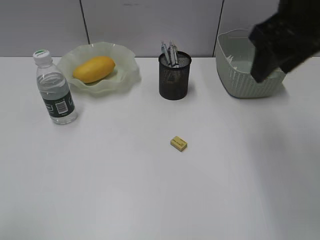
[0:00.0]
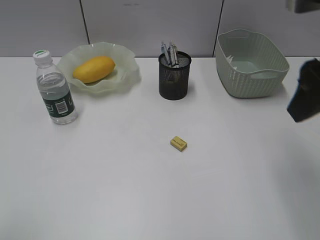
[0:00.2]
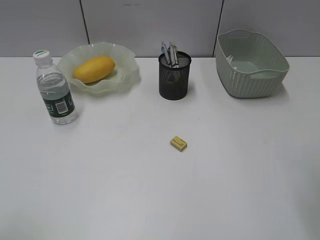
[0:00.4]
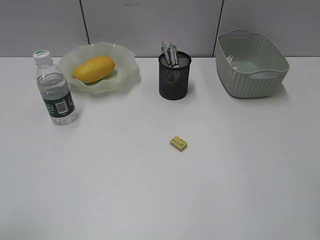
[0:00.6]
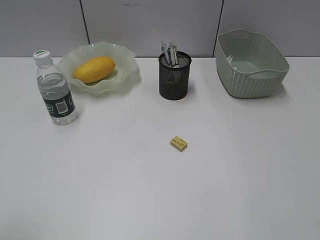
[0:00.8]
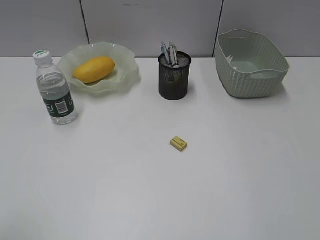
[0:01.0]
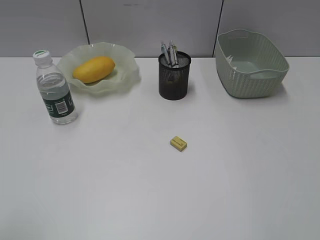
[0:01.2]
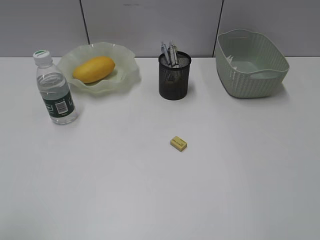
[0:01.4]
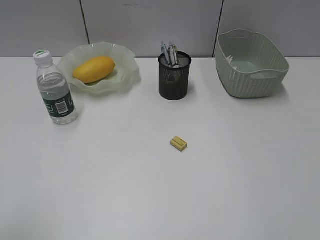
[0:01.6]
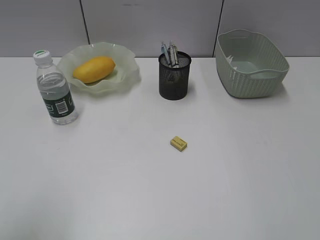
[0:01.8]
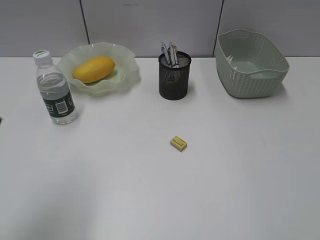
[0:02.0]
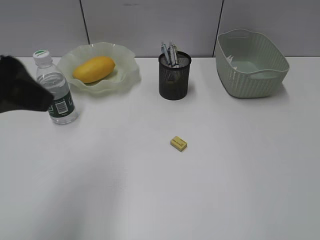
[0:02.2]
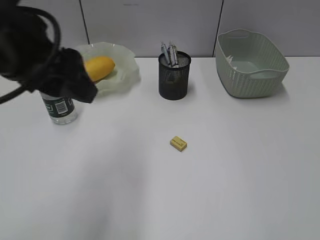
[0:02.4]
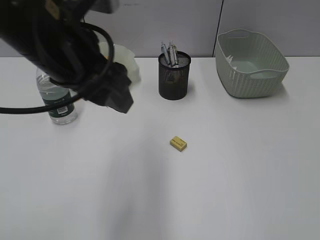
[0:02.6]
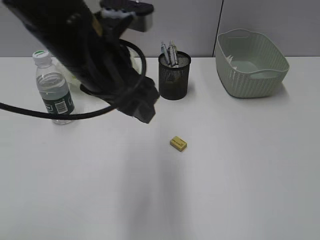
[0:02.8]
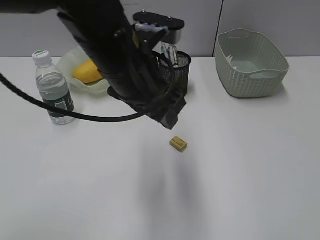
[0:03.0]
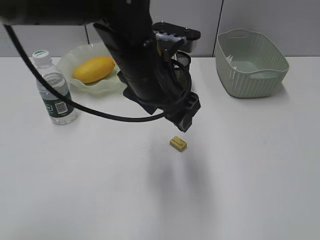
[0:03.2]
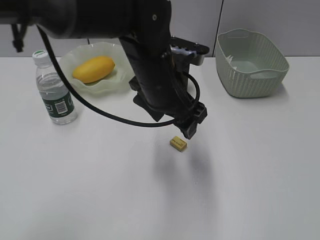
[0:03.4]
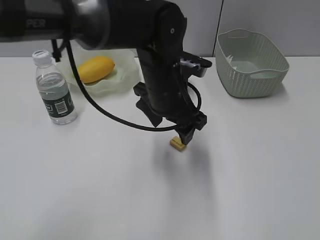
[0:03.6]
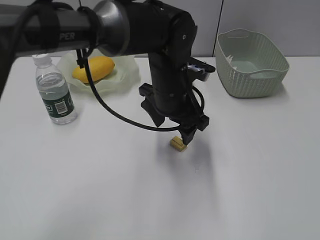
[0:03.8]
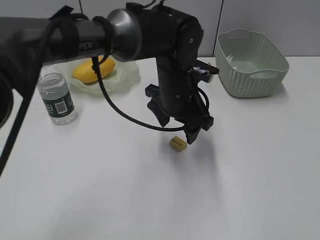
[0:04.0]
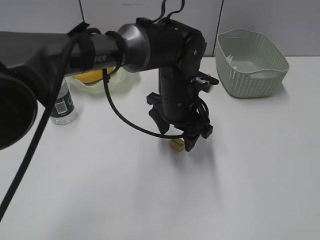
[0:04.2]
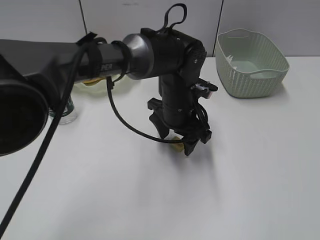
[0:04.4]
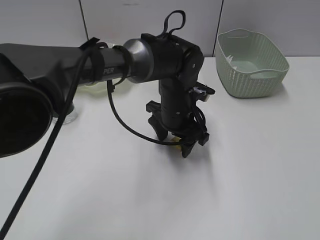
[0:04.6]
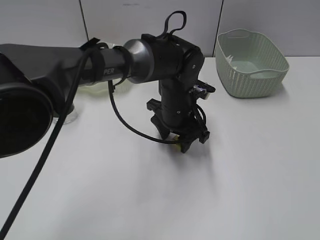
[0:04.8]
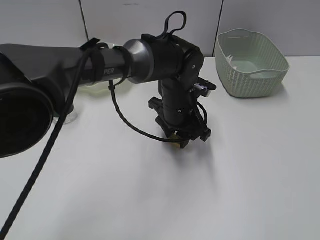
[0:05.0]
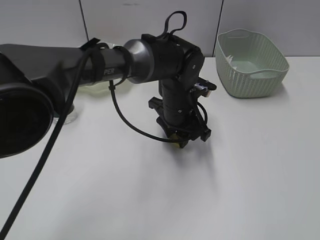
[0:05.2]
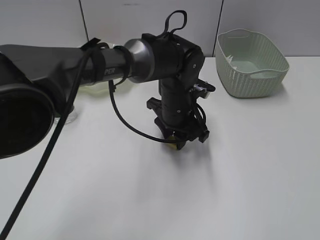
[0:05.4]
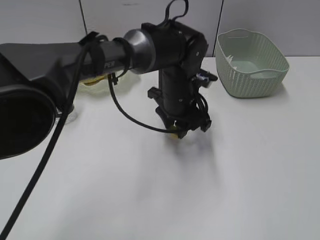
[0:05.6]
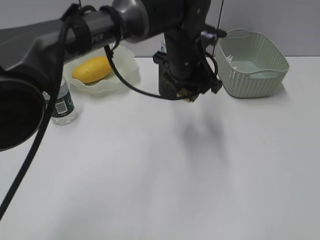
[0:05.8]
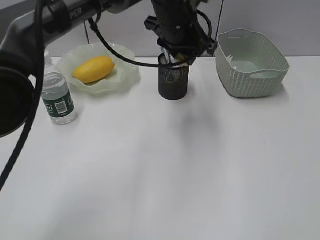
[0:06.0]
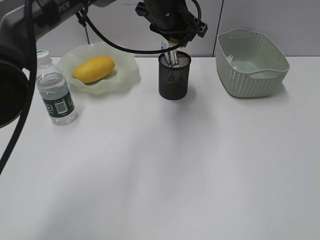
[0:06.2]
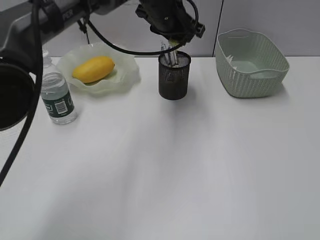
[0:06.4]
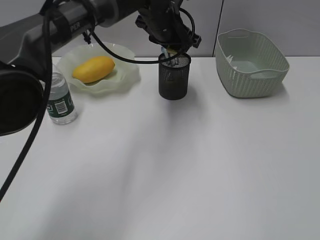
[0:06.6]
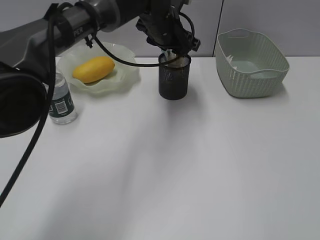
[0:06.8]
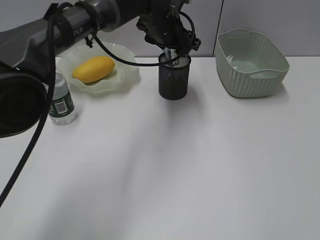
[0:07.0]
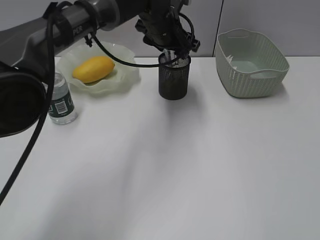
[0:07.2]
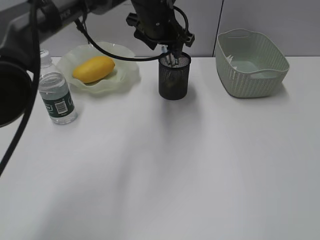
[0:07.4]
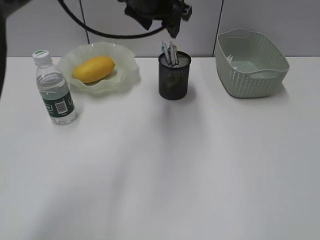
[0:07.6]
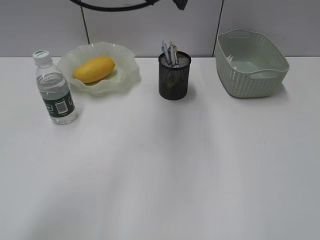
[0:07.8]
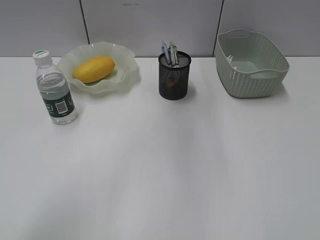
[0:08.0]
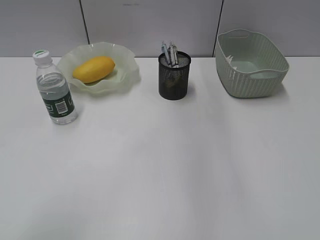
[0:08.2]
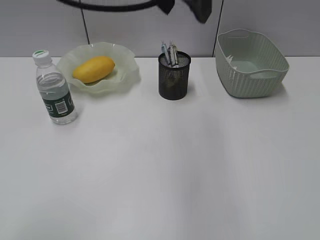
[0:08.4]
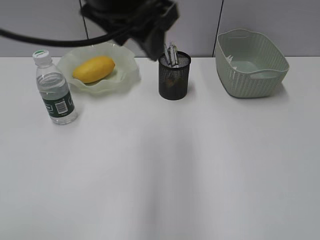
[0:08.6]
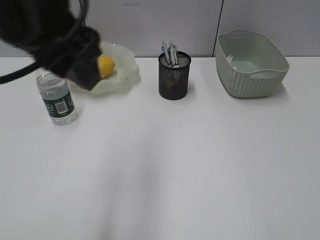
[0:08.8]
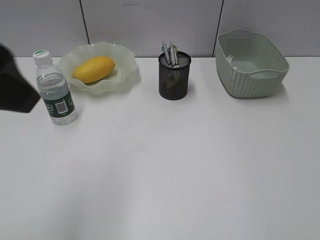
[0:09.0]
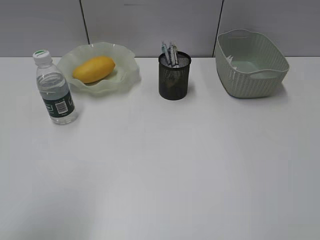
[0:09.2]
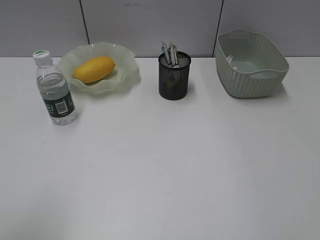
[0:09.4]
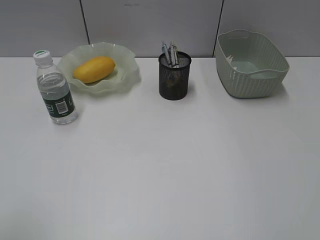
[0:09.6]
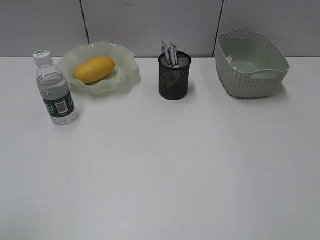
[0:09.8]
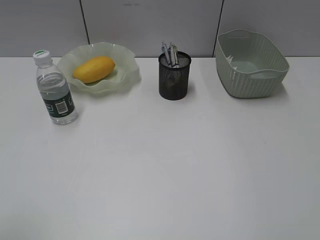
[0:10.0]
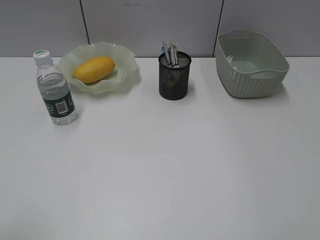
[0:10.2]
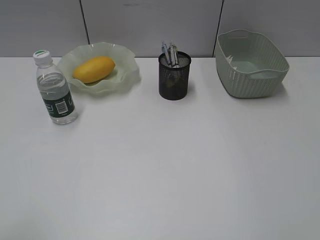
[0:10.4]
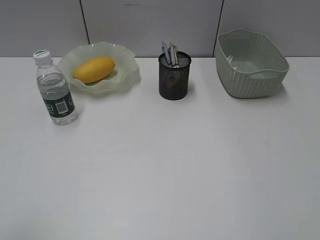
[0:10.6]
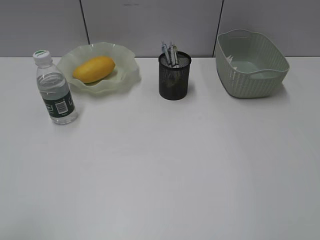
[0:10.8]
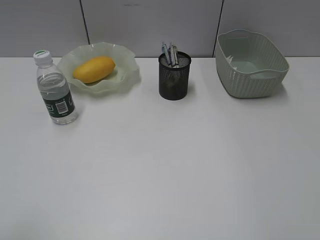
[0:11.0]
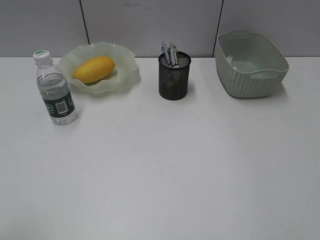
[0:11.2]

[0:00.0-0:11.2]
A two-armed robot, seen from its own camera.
Step, 0.0 to 5.2 s: Grasp the eraser with left gripper.
Step, 5.4 to 6.8 s: Place the eraser in pen holder with left gripper.
0.0 to 1.6 s: The right gripper heads backward and to the right, covering approximately 30 cm.
1.6 to 3.2 s: The left gripper moves to the right and forward, approximately 35 cm, and opens.
3.2 to 4.8 s: The left gripper moves downward, forward and to the right, some 15 cm.
4.8 to 6.4 s: The left gripper travels upward and forward by approximately 15 cm, and closes its fingers.
6.4 to 8.0 s: The left gripper is displaced upward and backward by roughly 15 cm, and opens.
8.0 to 9.6 s: The left gripper heads backward and to the left, covering some 40 cm.

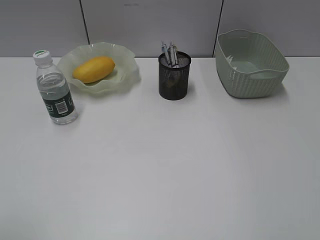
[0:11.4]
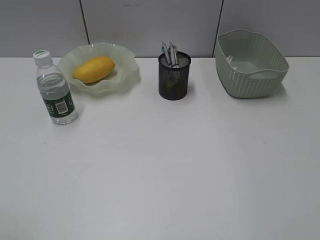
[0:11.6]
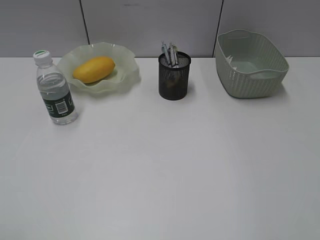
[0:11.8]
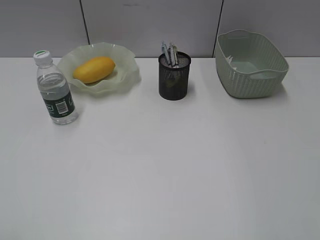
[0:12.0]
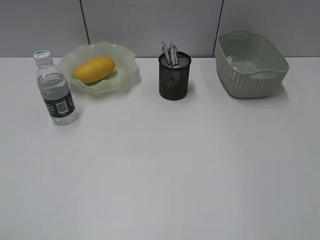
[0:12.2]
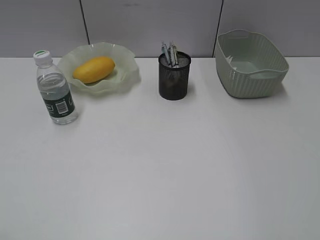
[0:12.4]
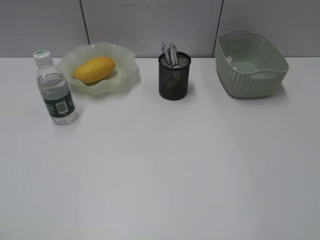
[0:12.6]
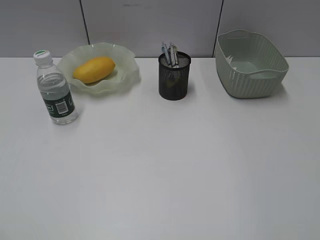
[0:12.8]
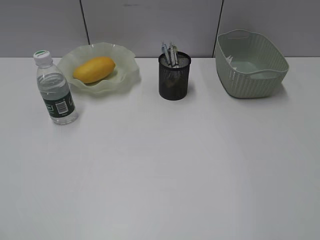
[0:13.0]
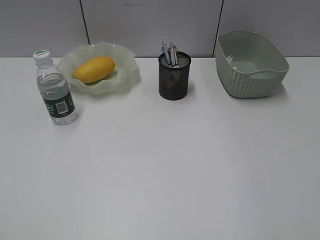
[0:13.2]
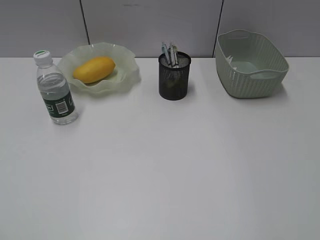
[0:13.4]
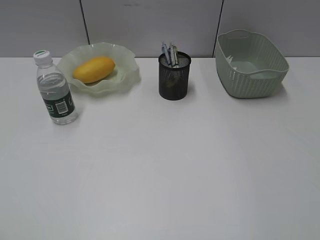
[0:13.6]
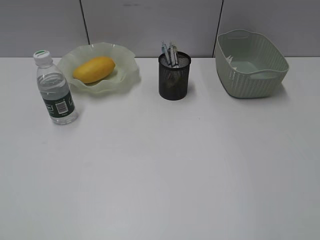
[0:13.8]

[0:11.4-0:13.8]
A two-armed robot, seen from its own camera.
12.6 to 13.8 s: Both grippers stay about where they are.

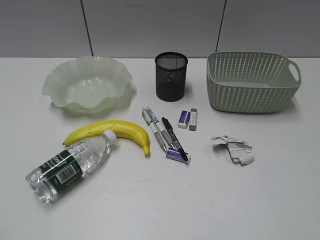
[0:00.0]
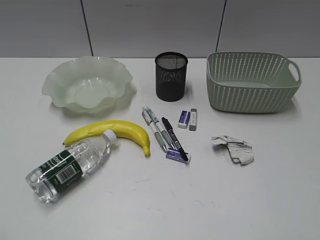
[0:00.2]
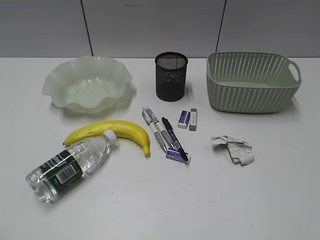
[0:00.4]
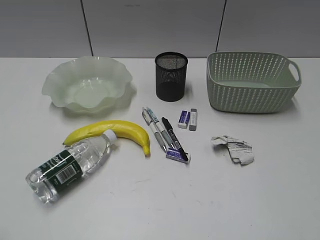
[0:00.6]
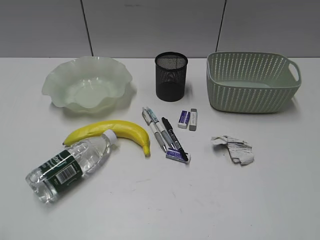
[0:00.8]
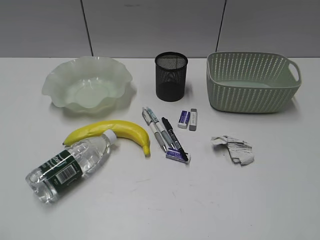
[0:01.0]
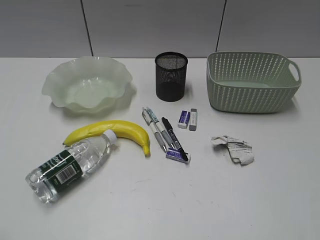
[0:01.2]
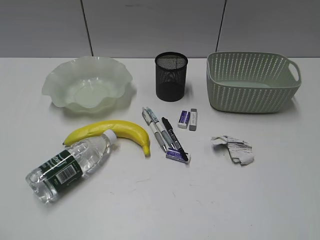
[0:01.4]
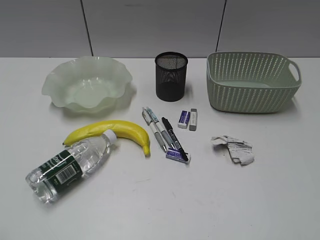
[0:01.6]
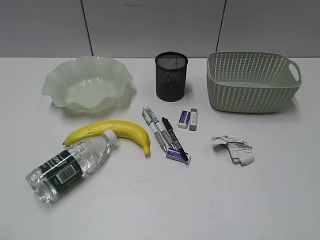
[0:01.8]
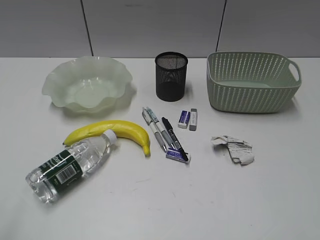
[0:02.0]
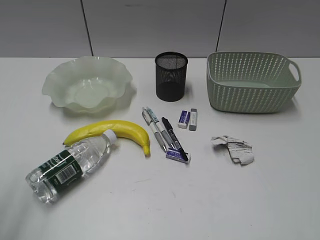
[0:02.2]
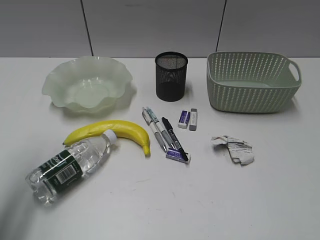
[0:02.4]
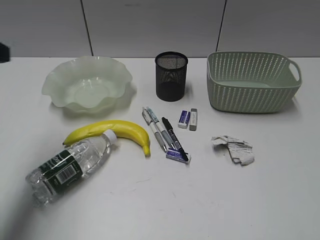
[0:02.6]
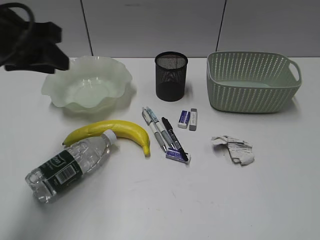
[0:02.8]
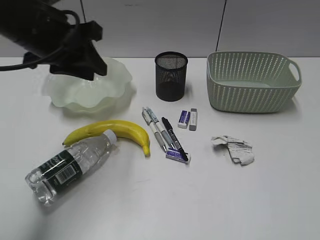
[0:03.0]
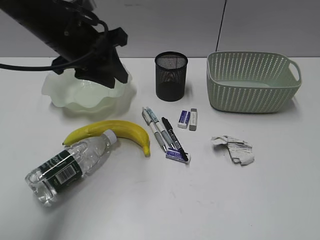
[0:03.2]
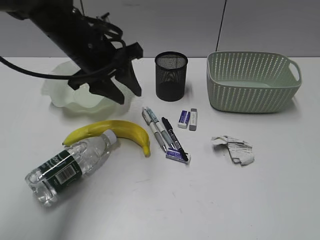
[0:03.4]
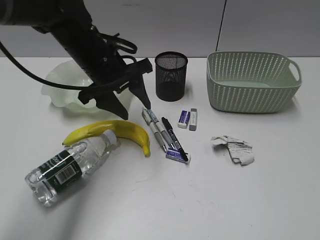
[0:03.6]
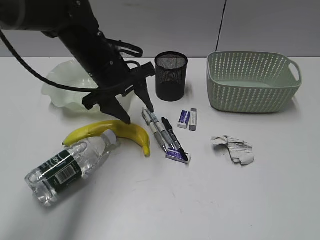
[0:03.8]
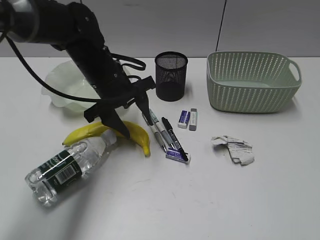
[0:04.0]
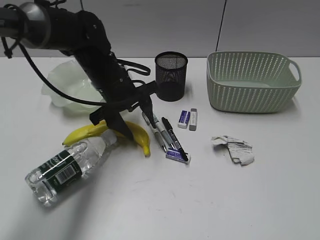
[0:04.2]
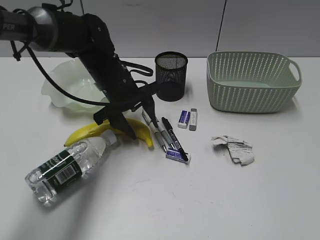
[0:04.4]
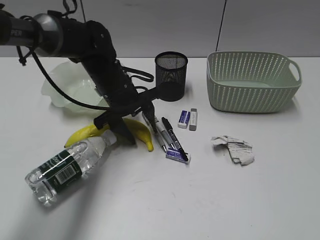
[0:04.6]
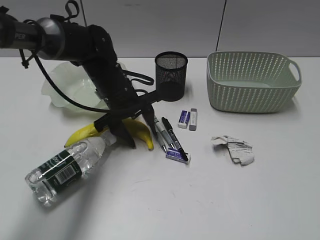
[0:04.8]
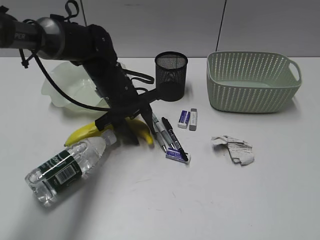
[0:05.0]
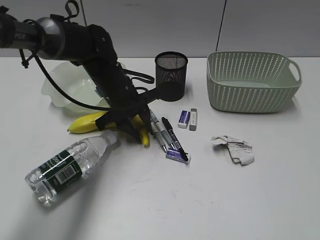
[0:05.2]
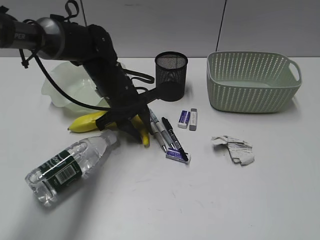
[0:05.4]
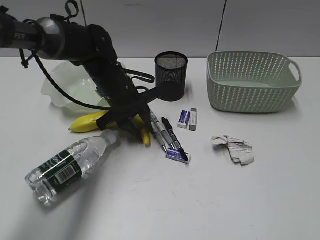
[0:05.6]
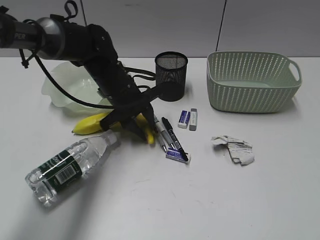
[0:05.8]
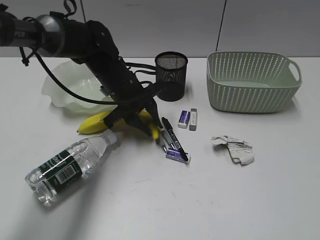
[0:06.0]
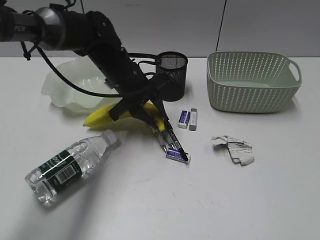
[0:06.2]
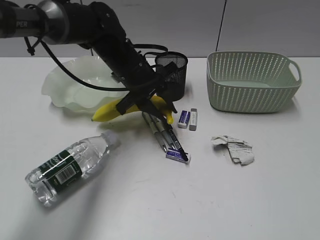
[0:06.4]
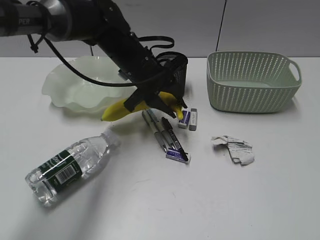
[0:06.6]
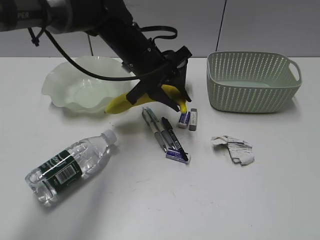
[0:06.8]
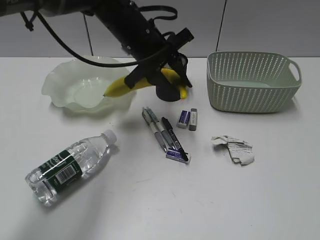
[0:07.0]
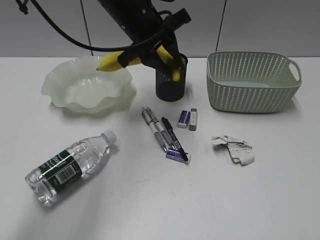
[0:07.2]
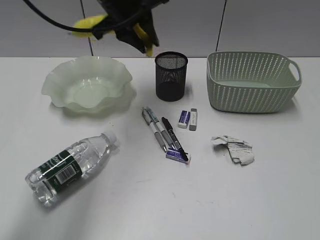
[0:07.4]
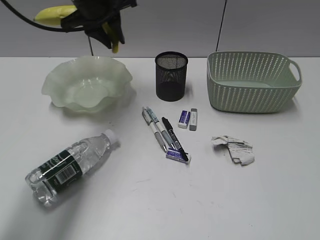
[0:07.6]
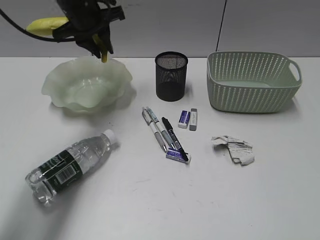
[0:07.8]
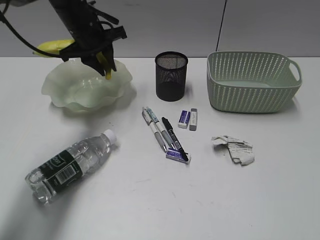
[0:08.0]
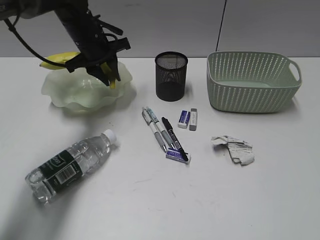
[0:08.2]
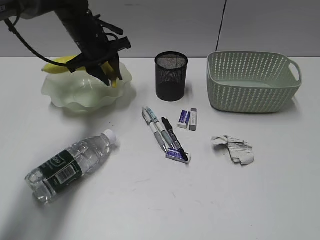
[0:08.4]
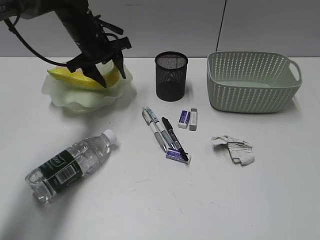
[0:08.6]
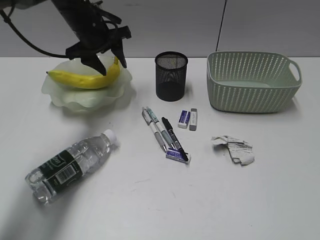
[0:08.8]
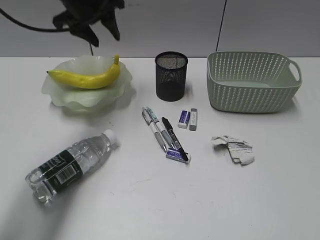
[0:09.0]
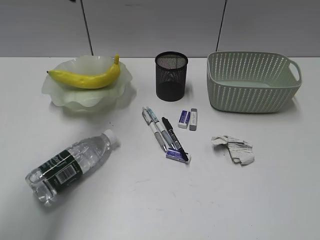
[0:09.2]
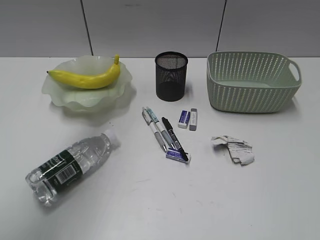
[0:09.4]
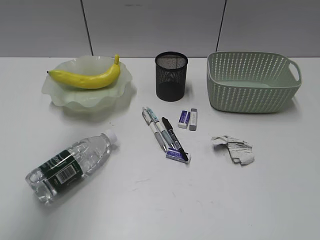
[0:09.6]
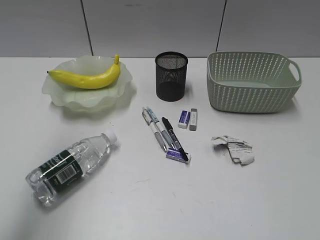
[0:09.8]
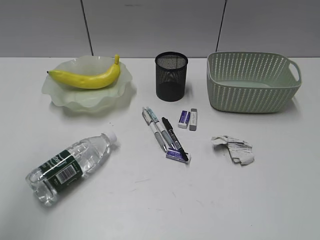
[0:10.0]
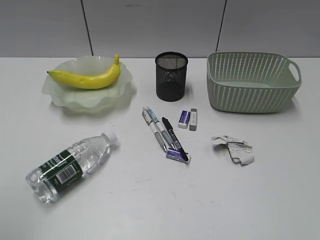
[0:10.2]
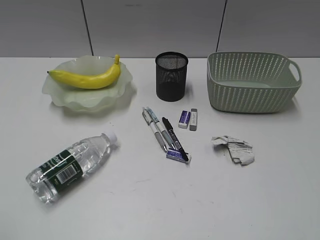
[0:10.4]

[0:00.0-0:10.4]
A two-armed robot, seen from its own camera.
Step, 1.8 to 5.4 s: Grasp the banana with left gripper.
Step, 5.6 to 8.8 s: Place the banana in the plate with left gripper.
1.4 to 3.0 s: The left gripper goes some 35 cm forward and to the right.
3.0 to 4.4 s: The left gripper is displaced downward, to the right and forward by roughly 20 cm, and opens.
4.4 to 6.0 s: The left gripper closes.
6.0 to 7.4 s: The left gripper goes approximately 15 cm upward.
7.4 to 9.0 s: The left gripper travels to the left and forward by about 10 cm, goes downward and returns, some 10 cm each way, and opens.
9.0 to 10.4 s: The left gripper heads backward, covering about 40 cm.
